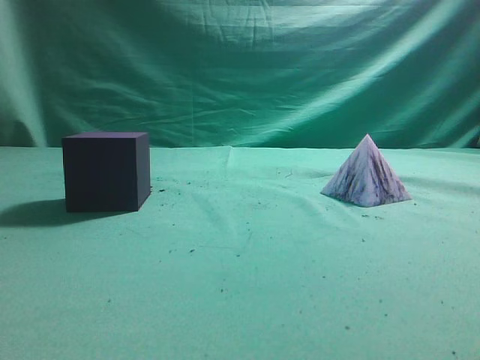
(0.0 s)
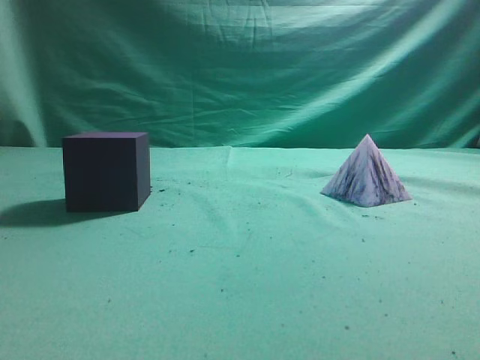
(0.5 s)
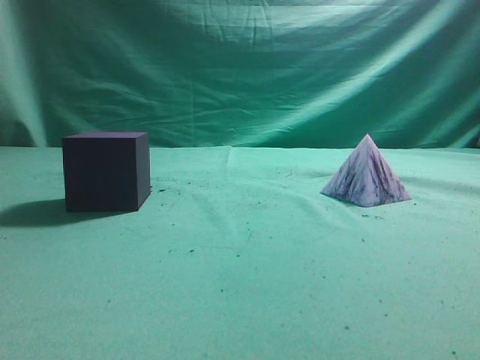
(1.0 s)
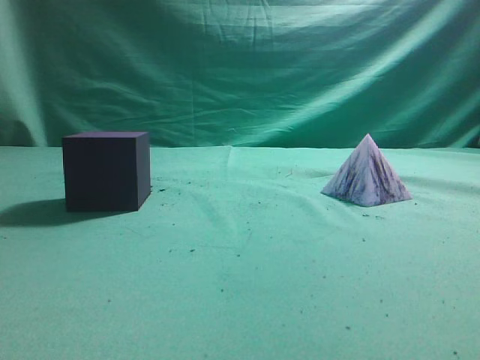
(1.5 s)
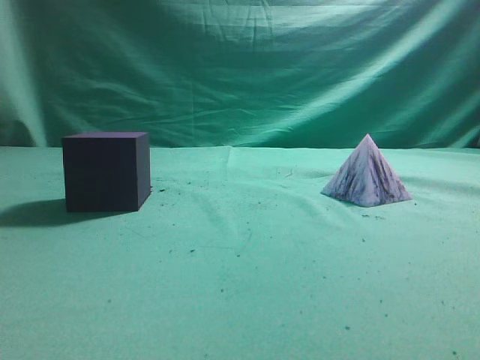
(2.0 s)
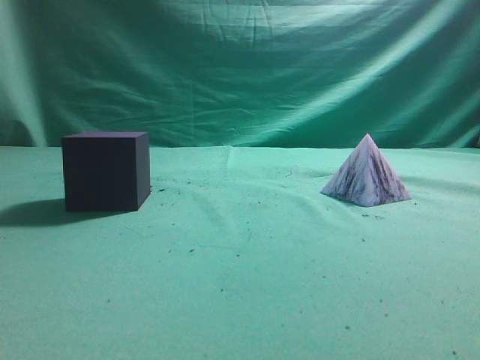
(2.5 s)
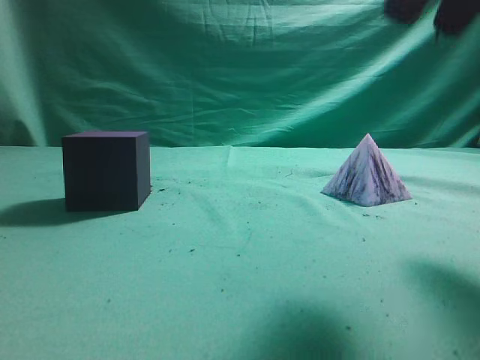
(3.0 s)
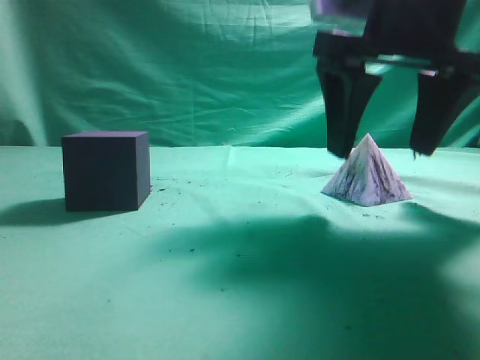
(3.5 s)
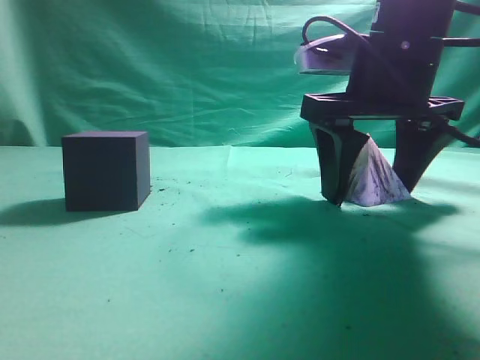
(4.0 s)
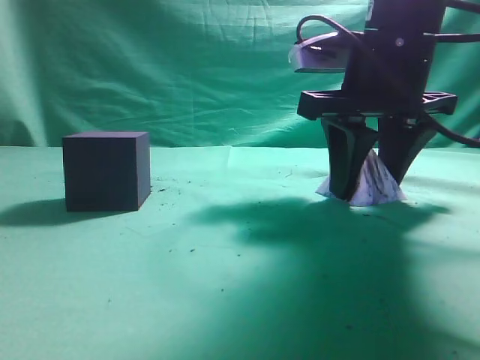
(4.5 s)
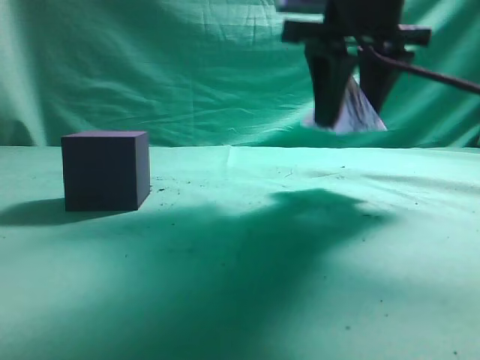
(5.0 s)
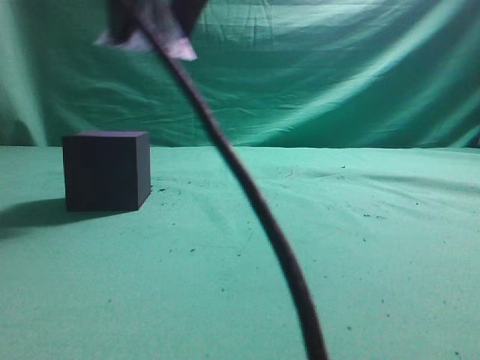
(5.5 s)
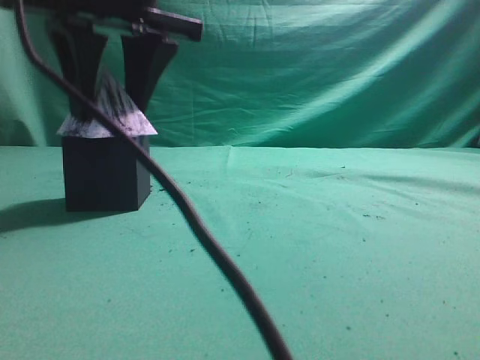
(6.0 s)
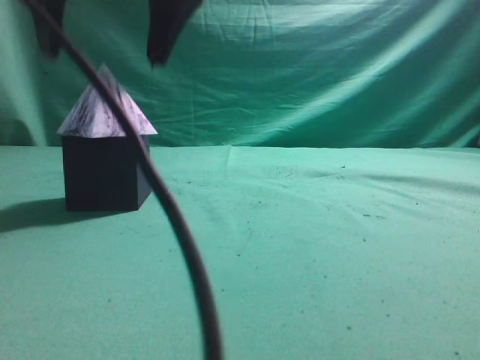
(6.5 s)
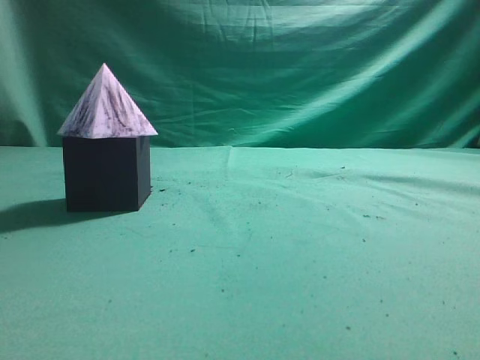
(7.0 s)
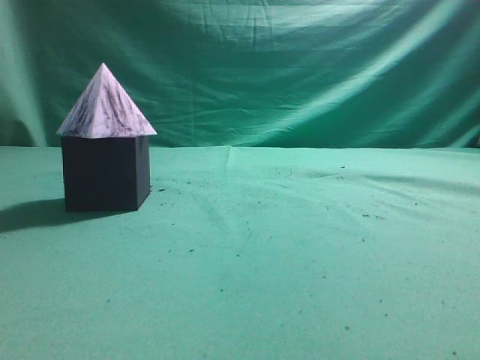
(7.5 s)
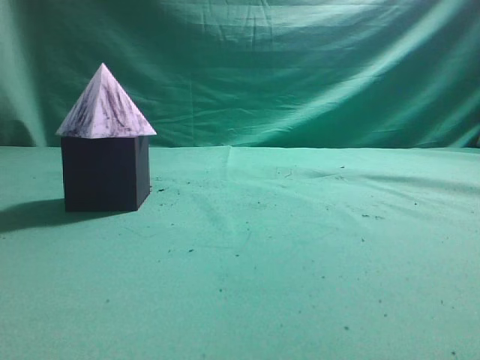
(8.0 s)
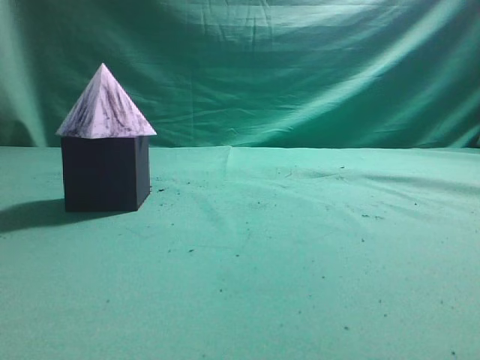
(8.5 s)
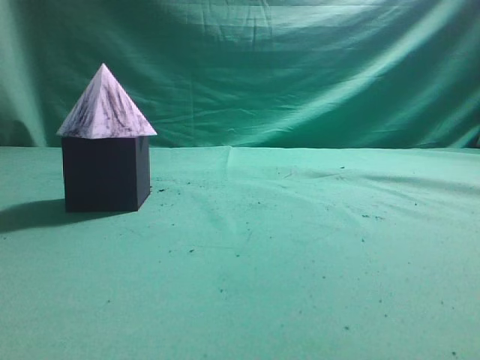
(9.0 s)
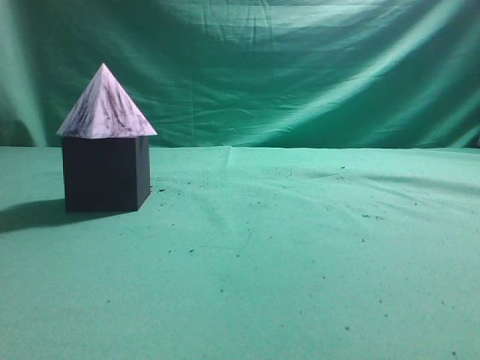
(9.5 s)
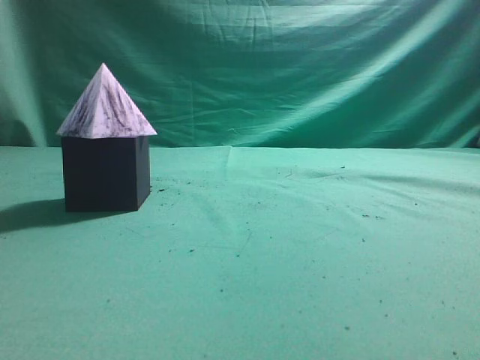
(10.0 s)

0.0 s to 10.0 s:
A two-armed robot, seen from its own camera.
Task of the whole recording: pick up the square pyramid from the table and place it on the cube block.
Step, 0.0 to 4.5 s: Grasp the triangular block.
Step, 5.0 to 6.0 s: Place the block onto the cube-shaped block.
2.0 to 4.0 s: The right gripper is displaced forward, to the left and downward by some 35 cm, and opens up.
4.0 to 6.0 s: The right gripper moves to the left, some 20 cm.
6.0 to 8.0 s: The right gripper goes about 50 cm to the right, backward and upward, and closes up.
